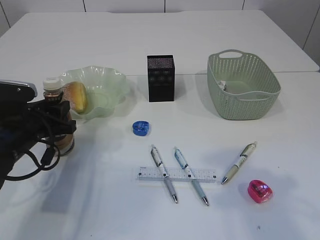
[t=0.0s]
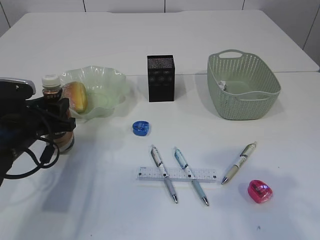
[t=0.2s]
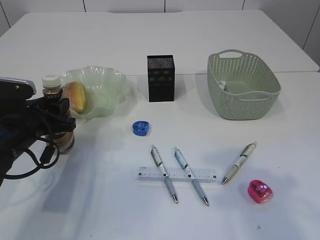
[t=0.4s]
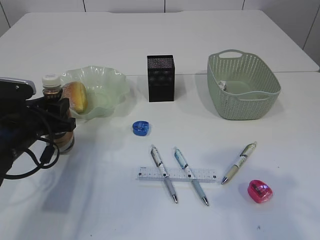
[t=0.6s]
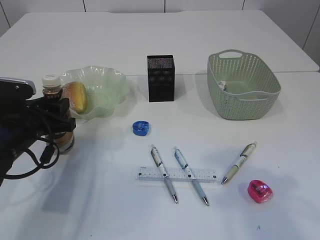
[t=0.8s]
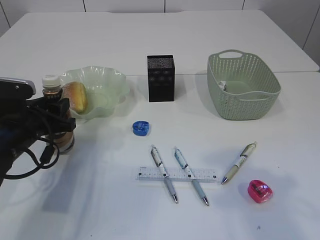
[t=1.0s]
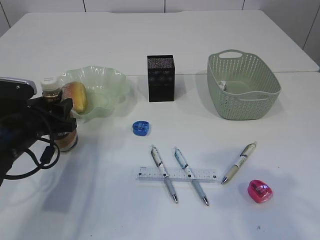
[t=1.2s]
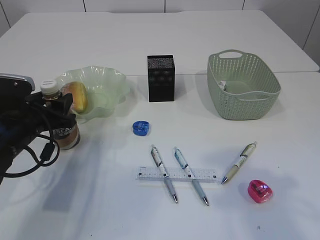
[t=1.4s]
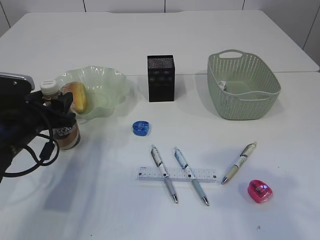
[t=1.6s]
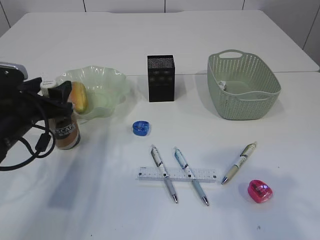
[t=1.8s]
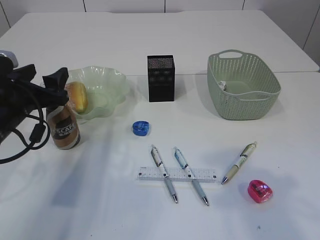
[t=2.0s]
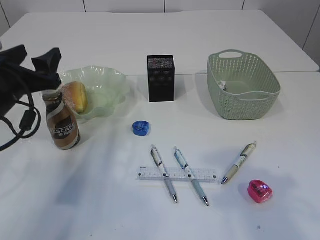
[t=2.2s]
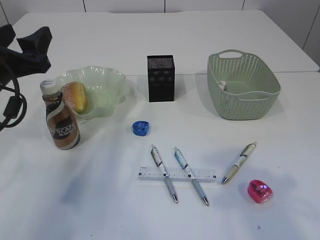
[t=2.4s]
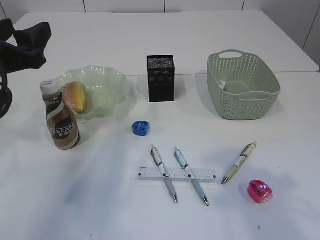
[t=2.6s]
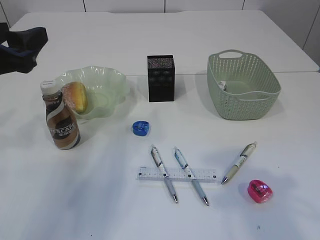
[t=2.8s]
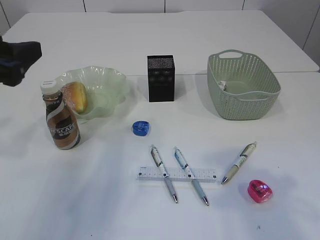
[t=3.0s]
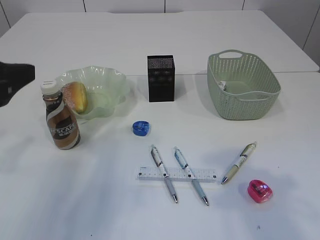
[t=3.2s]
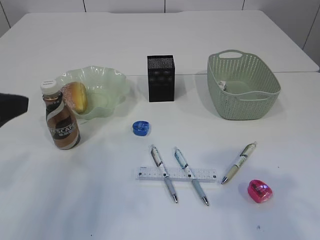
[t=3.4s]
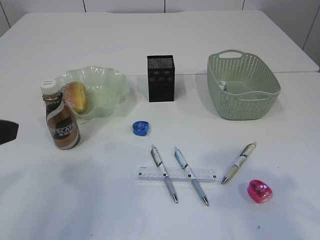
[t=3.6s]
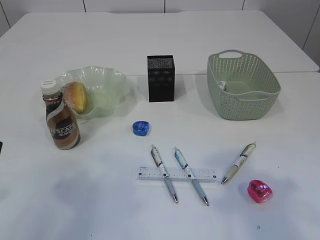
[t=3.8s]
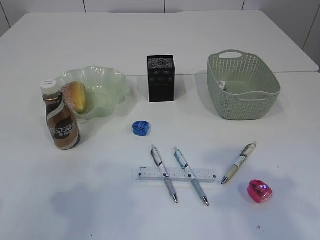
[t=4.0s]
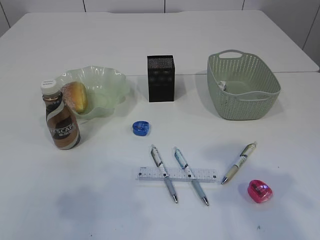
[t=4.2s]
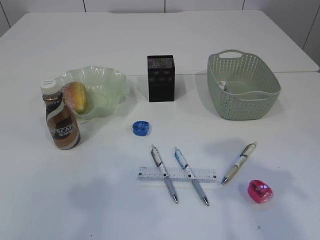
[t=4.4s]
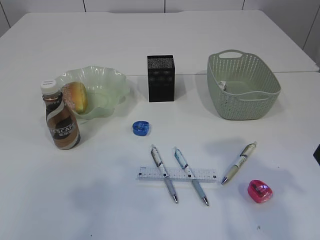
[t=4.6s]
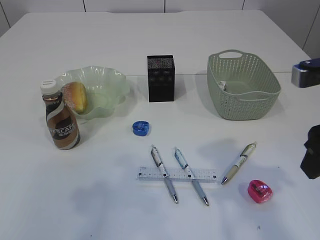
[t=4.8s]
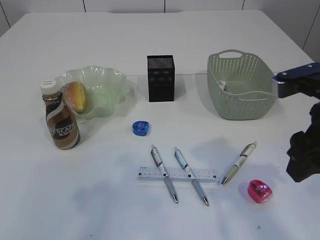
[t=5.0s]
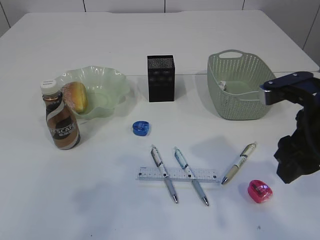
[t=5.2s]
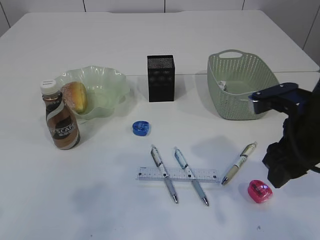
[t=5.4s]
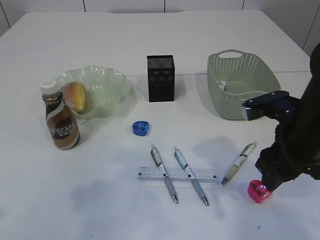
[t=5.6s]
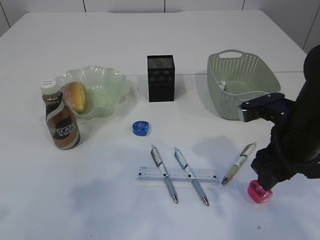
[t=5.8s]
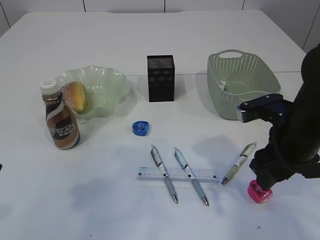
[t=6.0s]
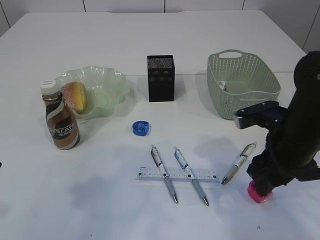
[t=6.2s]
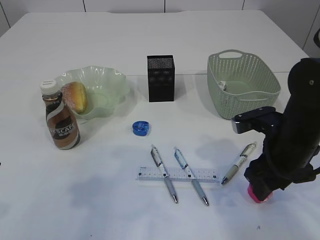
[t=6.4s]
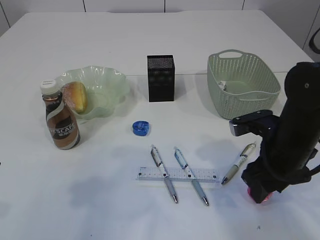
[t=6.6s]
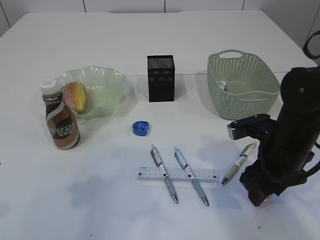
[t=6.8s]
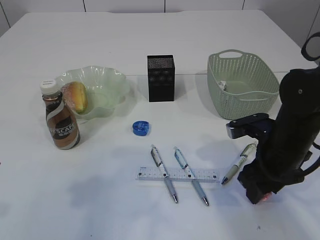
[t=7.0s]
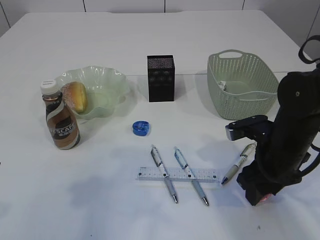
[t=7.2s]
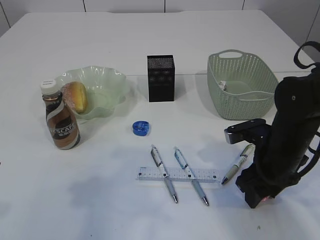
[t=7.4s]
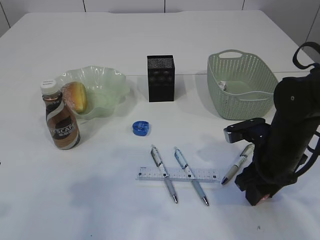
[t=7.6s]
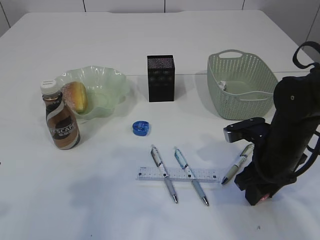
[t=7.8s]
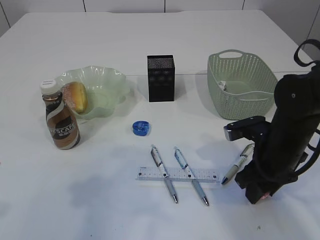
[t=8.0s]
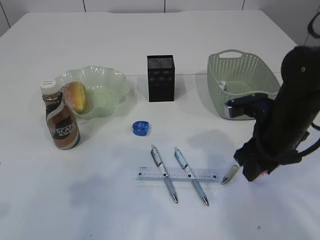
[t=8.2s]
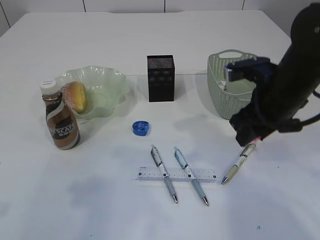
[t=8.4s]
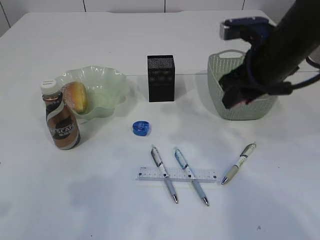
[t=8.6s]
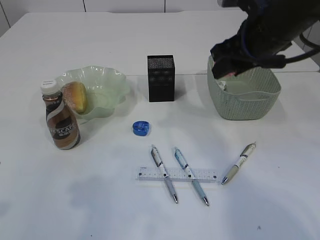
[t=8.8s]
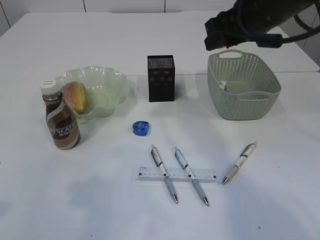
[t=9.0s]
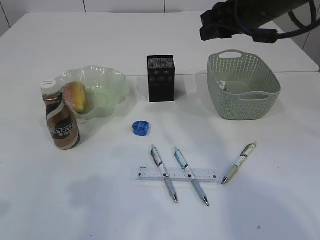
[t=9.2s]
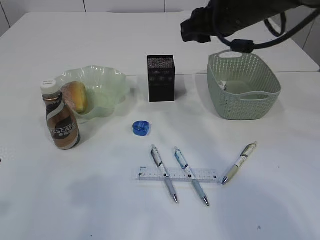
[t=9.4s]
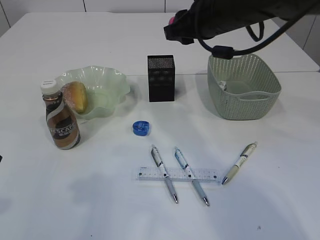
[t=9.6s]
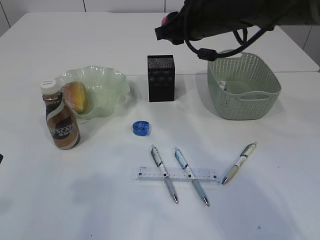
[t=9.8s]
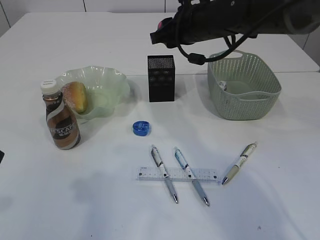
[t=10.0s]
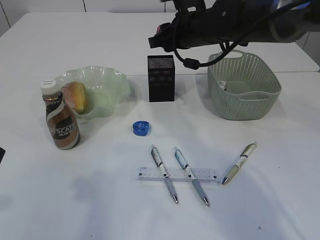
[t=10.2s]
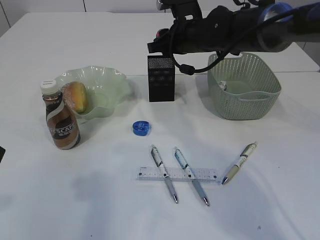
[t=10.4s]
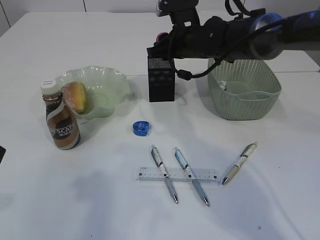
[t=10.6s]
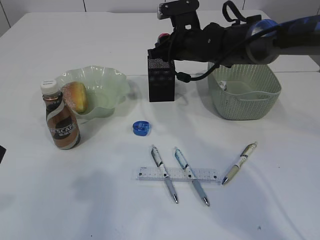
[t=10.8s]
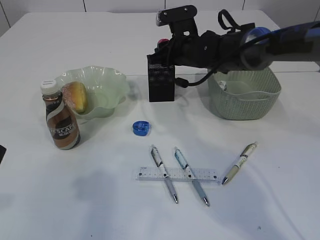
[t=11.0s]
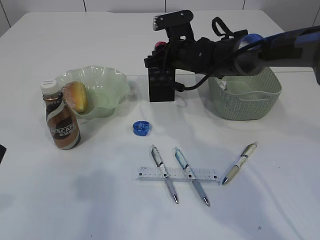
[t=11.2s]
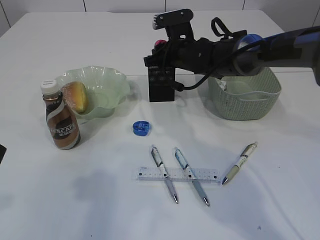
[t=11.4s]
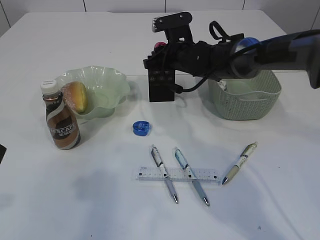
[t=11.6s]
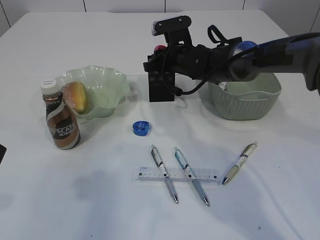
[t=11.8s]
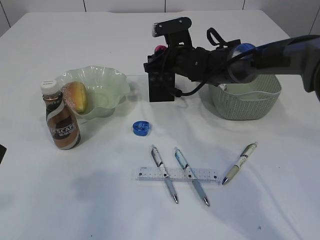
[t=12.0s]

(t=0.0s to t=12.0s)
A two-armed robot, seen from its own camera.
Step, t=0.0s - t=3.2s: Place the bottle.
Step, t=3.4s - t=8.4s: Pick up the red pencil sharpener.
t=0.0s - t=1.6s: The left gripper opens.
t=1.6s - t=3.0s: The left gripper travels upward and backward by roughly 15 cm.
t=3.0s - t=4.4s: The left gripper goes approximately 15 cm backward and upward.
t=4.4s - t=6.0s: The right gripper is displaced downward and forward by approximately 15 cm.
t=6.0s - t=7.6s: The right gripper moves downward, some 5 cm.
t=7.6s - t=9.0s: The right gripper goes roughly 20 cm upward and forward.
t=9.0s - t=10.4s: The right gripper shifts approximately 15 cm forward, downward and to the left.
t=10.4s - t=12.0s: The right gripper heads downward, covering about 5 cm.

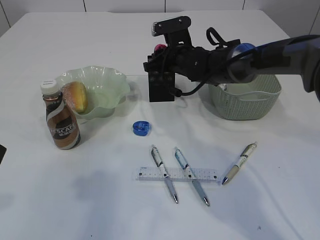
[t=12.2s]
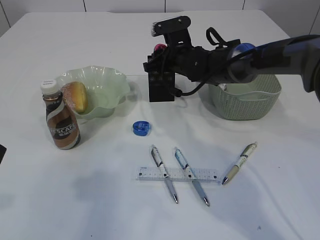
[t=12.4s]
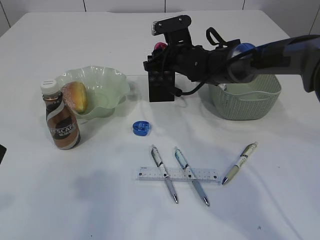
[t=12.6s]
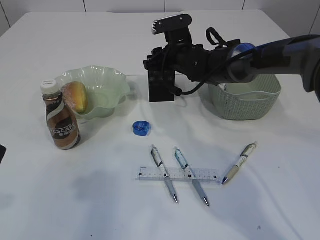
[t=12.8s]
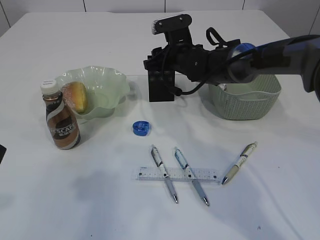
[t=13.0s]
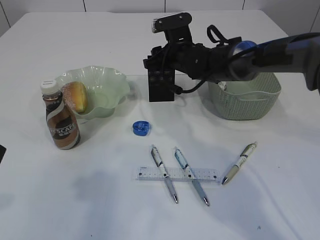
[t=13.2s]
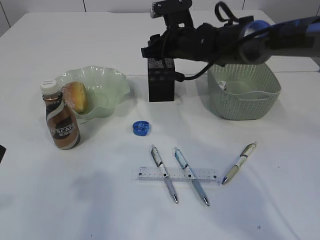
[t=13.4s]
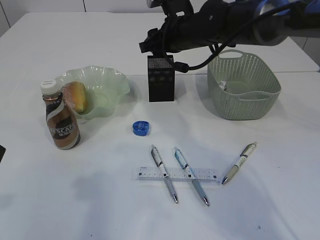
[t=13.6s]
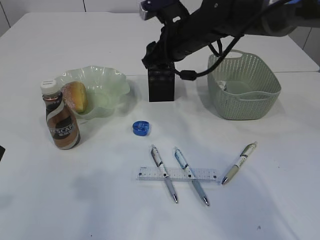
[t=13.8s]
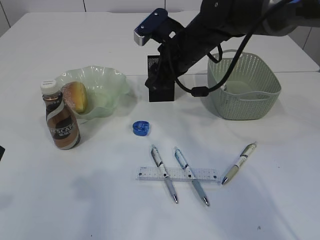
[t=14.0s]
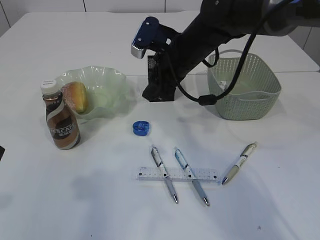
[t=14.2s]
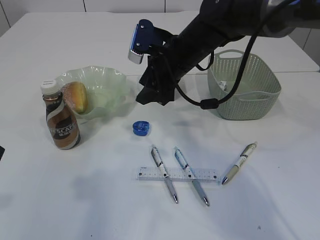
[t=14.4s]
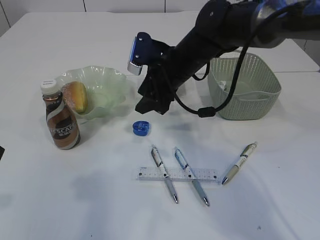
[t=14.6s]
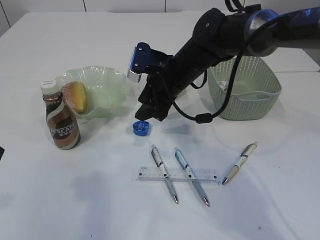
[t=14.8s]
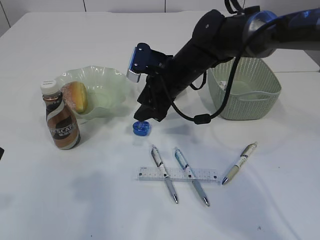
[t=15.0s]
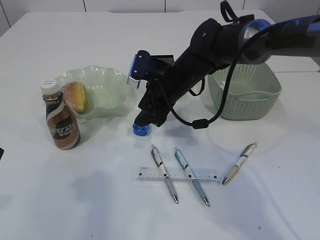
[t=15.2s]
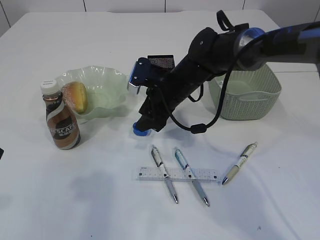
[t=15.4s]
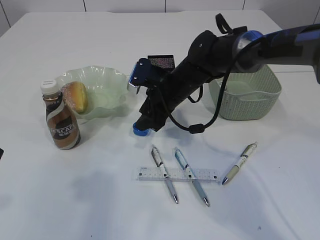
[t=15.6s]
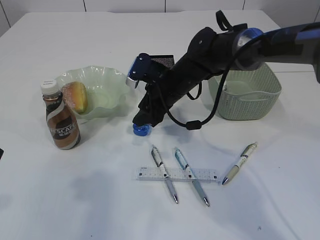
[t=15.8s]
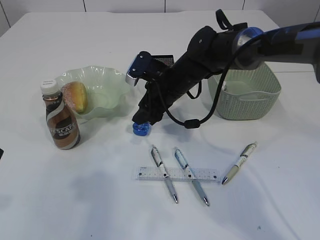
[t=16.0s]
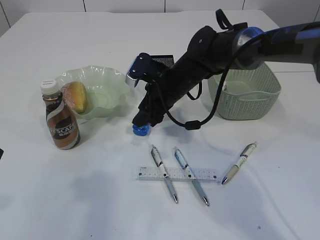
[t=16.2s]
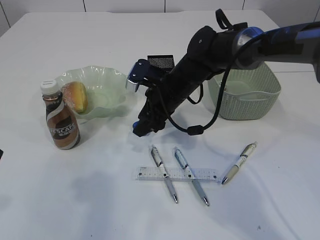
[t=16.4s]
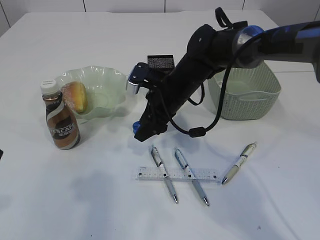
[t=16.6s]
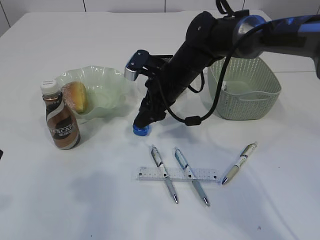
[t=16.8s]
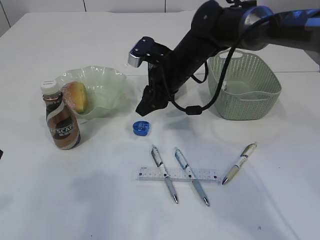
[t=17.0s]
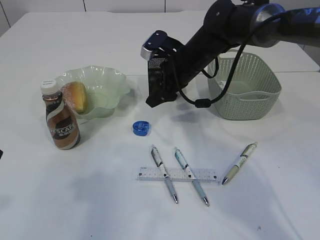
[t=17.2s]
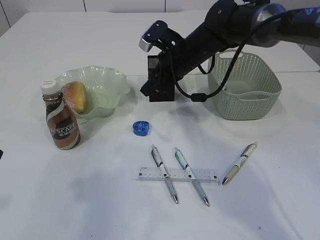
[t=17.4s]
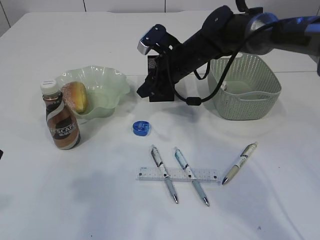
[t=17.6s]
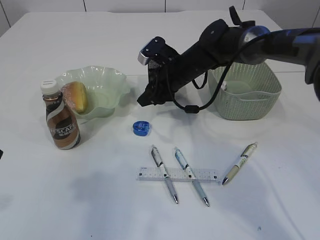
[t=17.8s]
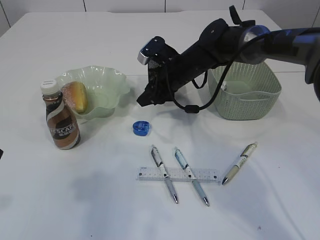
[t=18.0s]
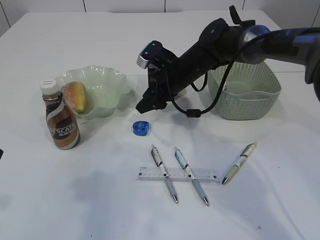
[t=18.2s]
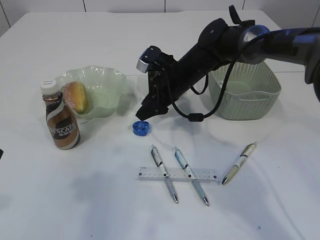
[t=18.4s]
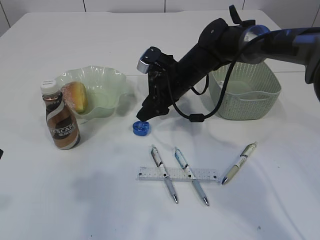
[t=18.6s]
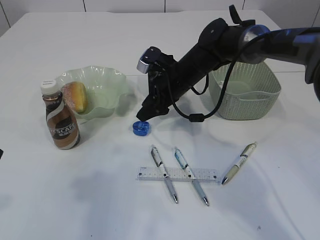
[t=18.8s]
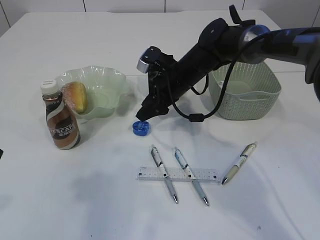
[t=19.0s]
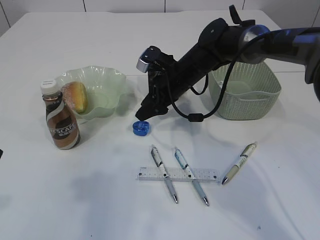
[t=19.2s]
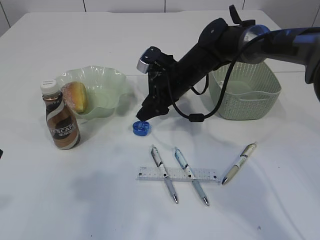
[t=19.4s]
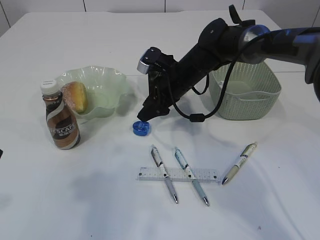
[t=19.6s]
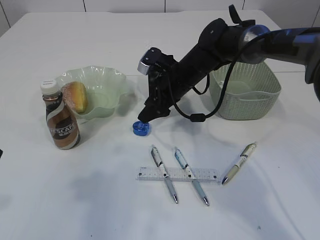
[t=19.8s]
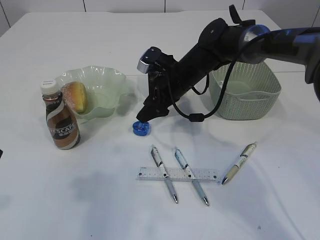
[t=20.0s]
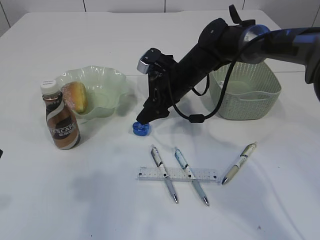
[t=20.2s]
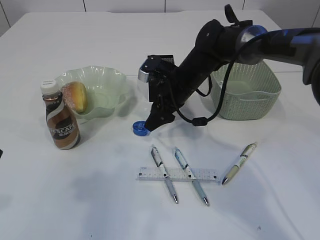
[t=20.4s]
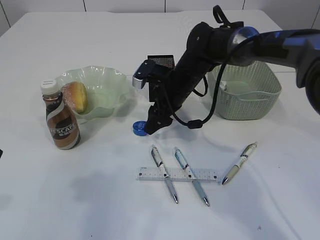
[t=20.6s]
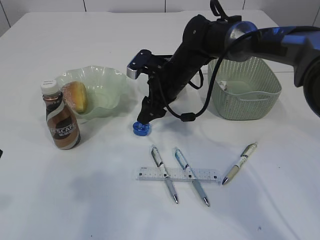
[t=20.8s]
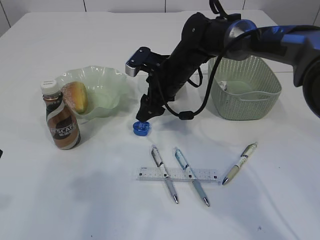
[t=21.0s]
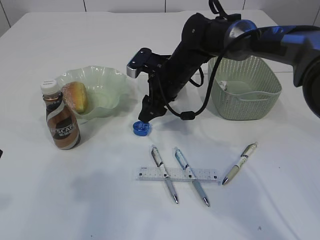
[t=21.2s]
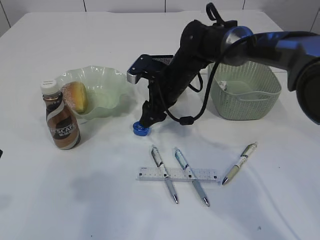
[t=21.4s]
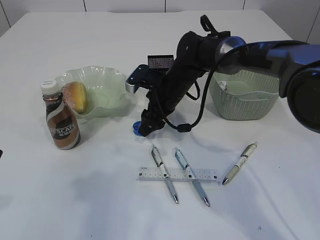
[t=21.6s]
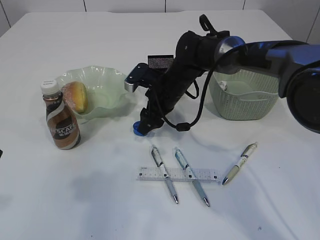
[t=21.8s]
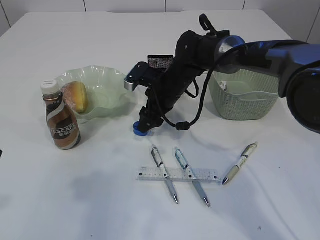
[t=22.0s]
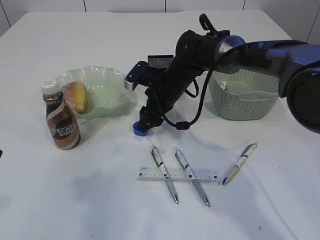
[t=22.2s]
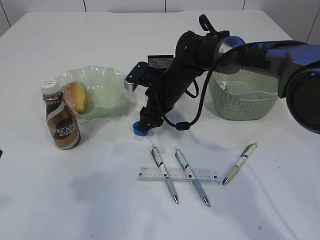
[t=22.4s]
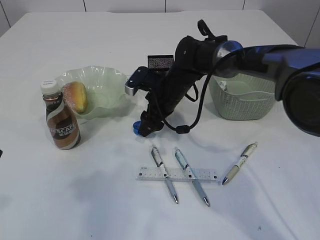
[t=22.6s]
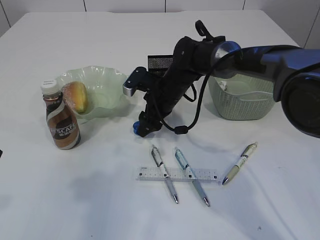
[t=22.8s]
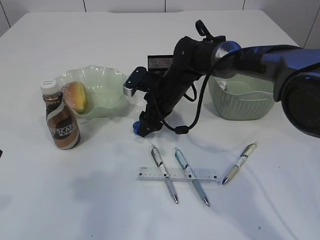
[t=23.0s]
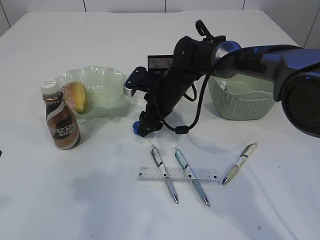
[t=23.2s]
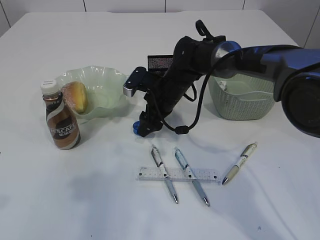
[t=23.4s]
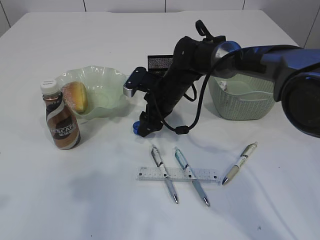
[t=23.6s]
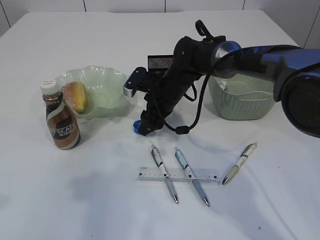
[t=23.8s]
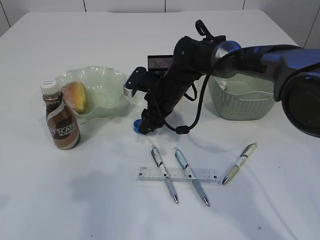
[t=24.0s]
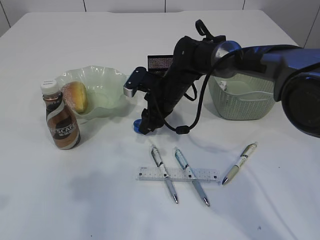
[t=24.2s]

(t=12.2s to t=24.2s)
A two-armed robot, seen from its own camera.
t=12.2s - t=13.8s: The right gripper moves upward and backward, roughly 10 cm.
t=13.8s - t=15.2s: The right gripper goes some 5 cm downward.
t=15.2s - t=16.6s: The grippers move only a little.
t=16.6s - t=18.2s: The right gripper shifts roughly 5 cm forward.
t=18.2s - t=22.6s: There are only small adjustments of the grippers.
t=22.6s - t=24.2s: The right gripper closes its fingers.
